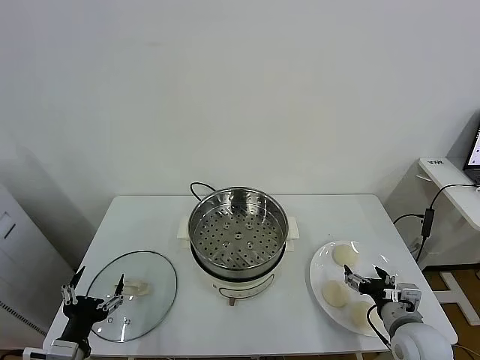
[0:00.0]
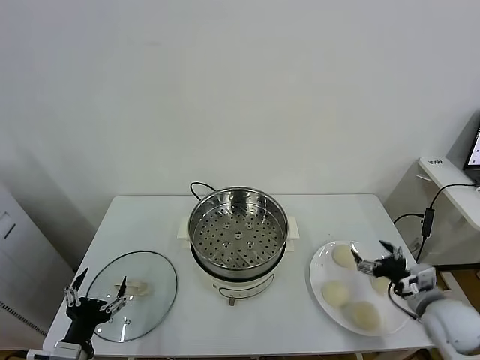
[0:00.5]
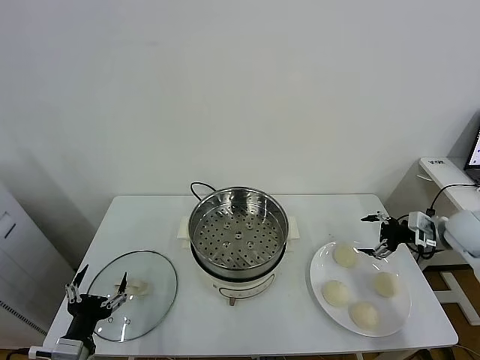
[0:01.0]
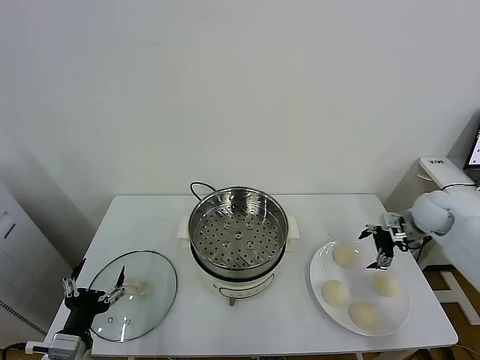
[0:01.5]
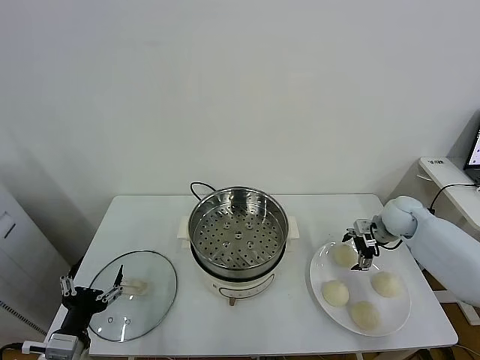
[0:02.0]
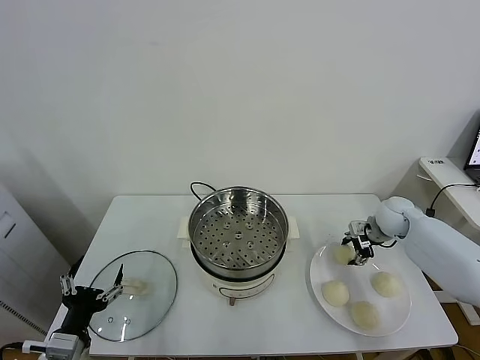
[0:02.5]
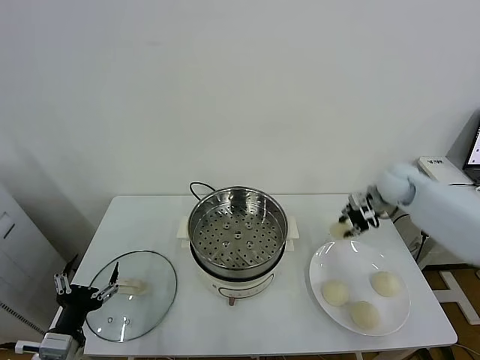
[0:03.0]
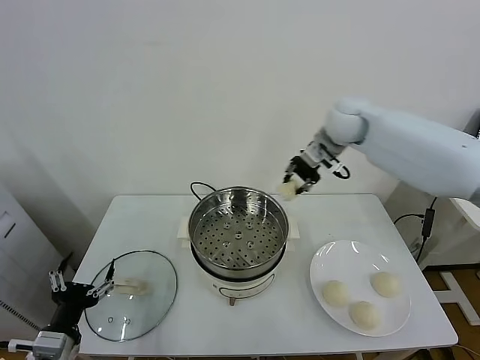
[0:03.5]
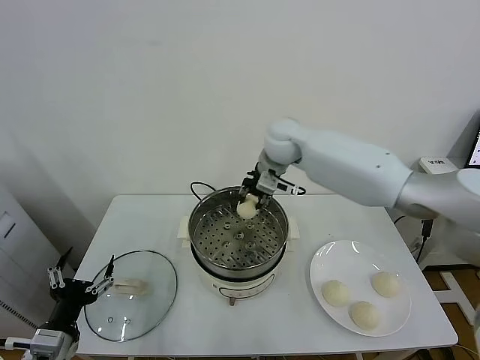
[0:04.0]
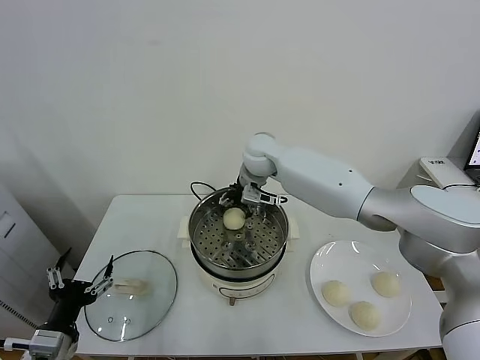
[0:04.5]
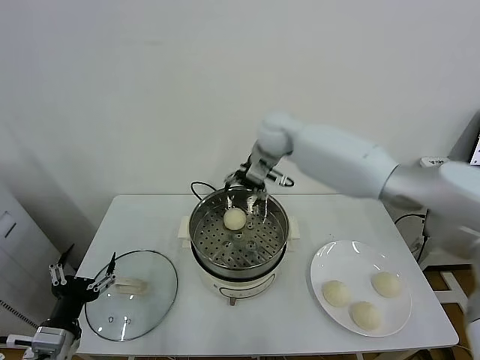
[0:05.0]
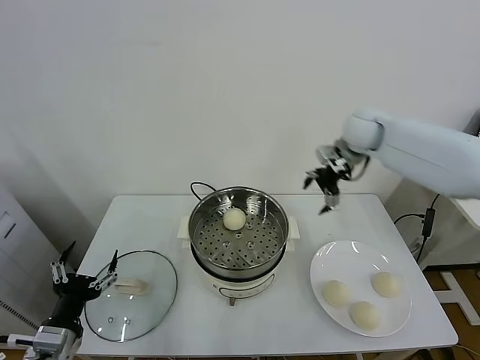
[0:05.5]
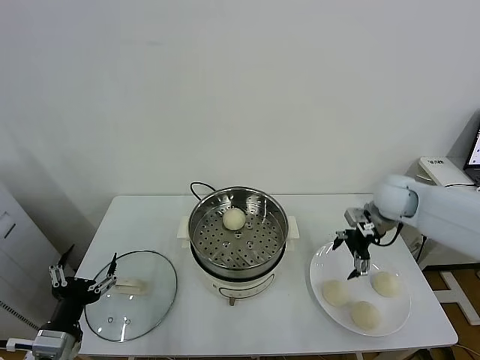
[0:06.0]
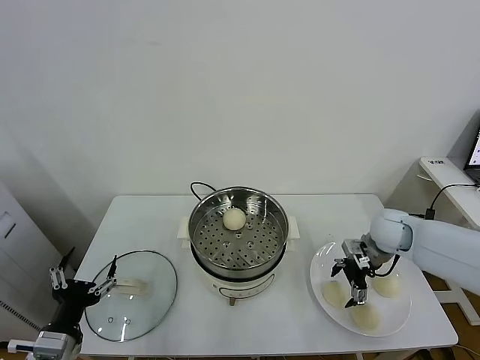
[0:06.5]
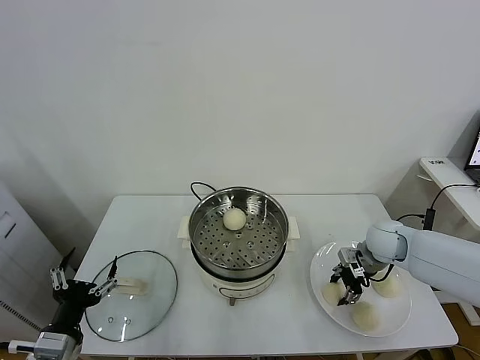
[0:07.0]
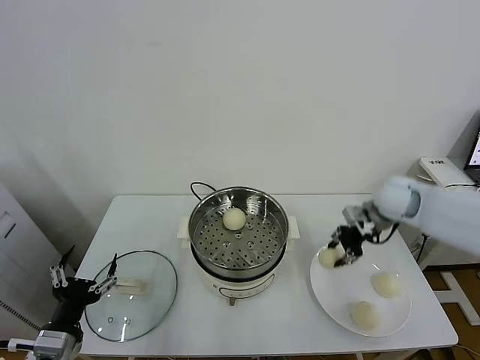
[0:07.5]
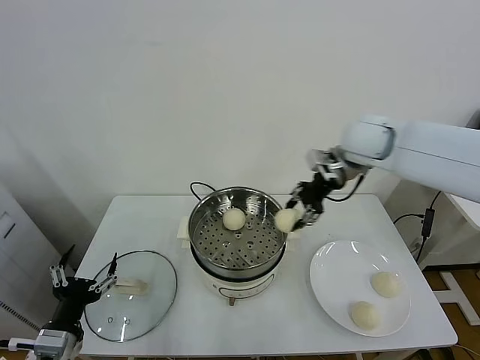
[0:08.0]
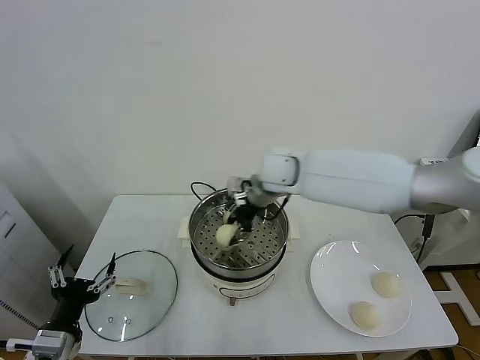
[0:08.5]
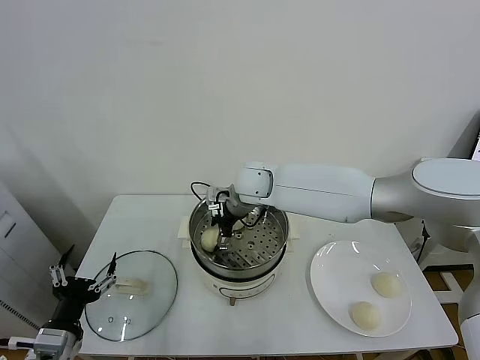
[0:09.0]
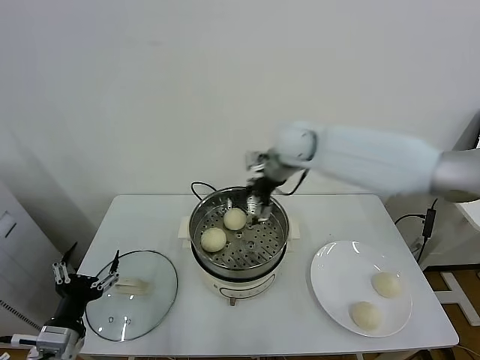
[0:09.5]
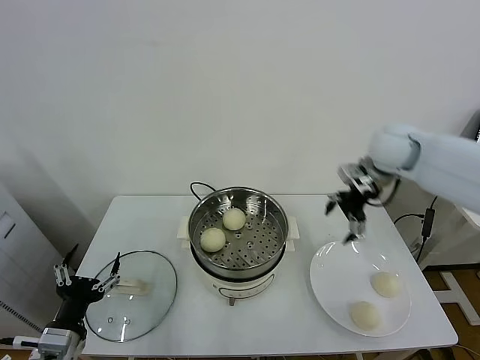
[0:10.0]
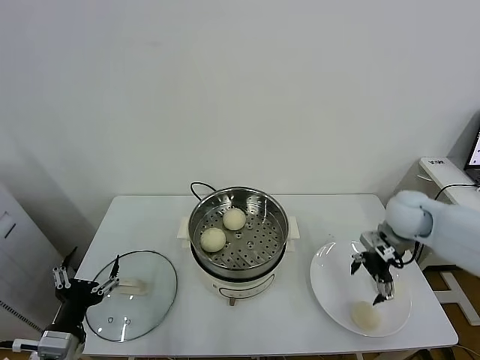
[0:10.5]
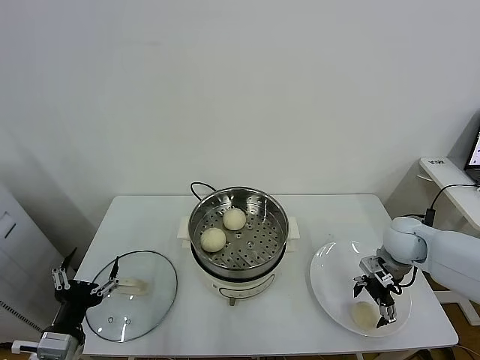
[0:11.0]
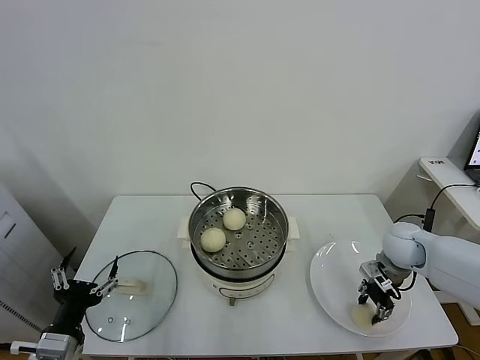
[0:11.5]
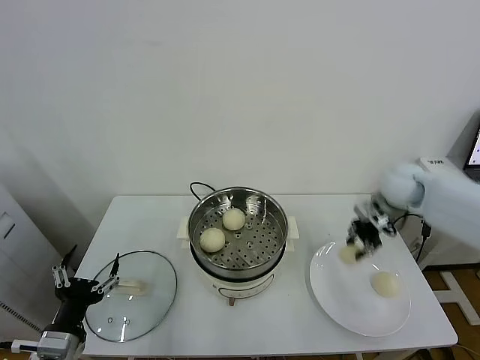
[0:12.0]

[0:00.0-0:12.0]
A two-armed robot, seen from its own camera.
Task of the whole recording: take steamed baozi put them in steamer.
Step, 0:00.0 to 0:02.0: Grasp the baozi in the plate with right gripper.
Step, 0:02.5 to 0:04.5: Place the baozi on the steamer with right gripper.
Step, 0:05.0 to 0:07.0: Grasp the baozi in the plate with right gripper.
Step, 0:07.5 to 0:09.0: Place the baozi on the steamer with right gripper.
Step, 0:09.5 to 0:11.0: Grasp the baozi in the plate with right gripper.
0:02.0 to 0:04.0: The right gripper shifts roughly 35 cm to the left and upward, and closes up.
0:04.0 to 0:06.0: The right gripper moves to the right, about 25 cm, and opens up.
0:06.0 to 0:08.0: The right gripper shifts approximately 20 cm upward and to the left, and closes up.
0:08.0 to 0:10.0: The right gripper reaches about 20 cm to the left, then returns, and opens.
0:10.0 to 0:12.0: The right gripper reaches roughly 20 cm downward, then returns, and closes.

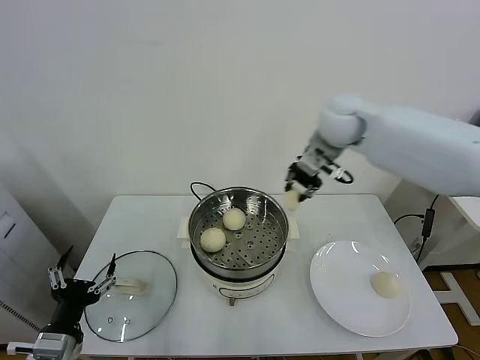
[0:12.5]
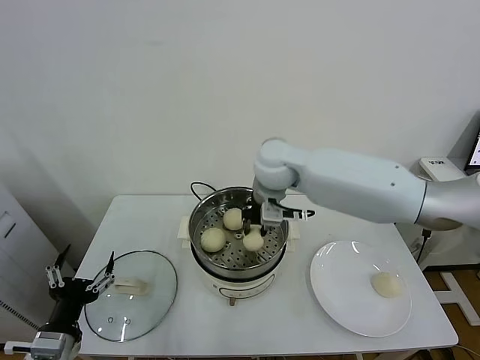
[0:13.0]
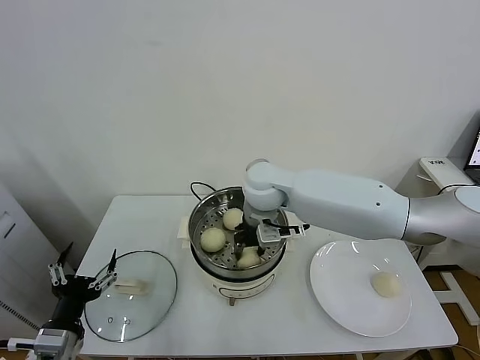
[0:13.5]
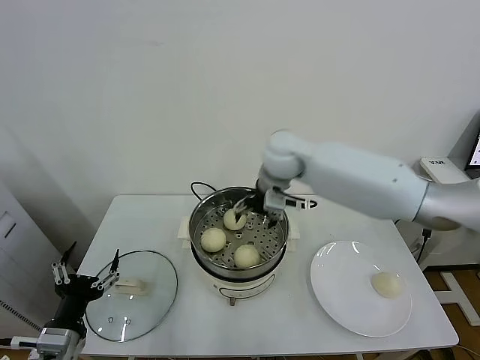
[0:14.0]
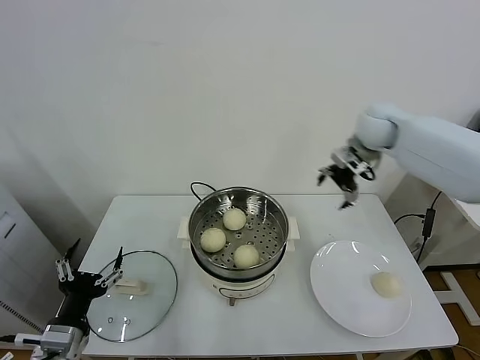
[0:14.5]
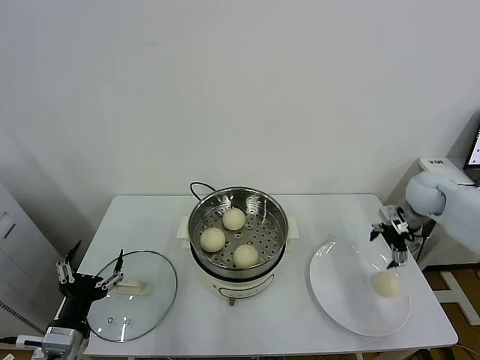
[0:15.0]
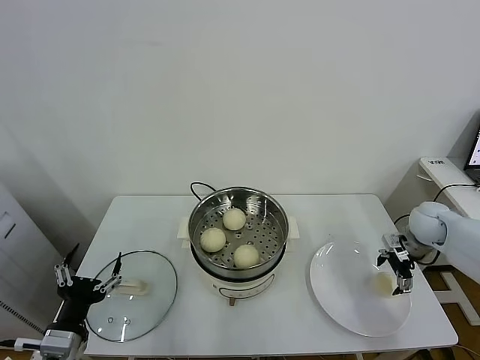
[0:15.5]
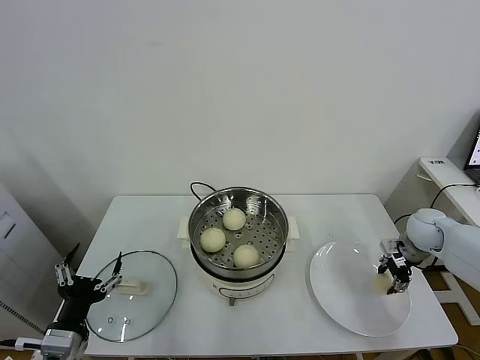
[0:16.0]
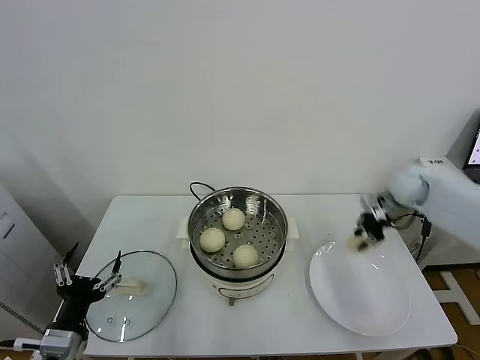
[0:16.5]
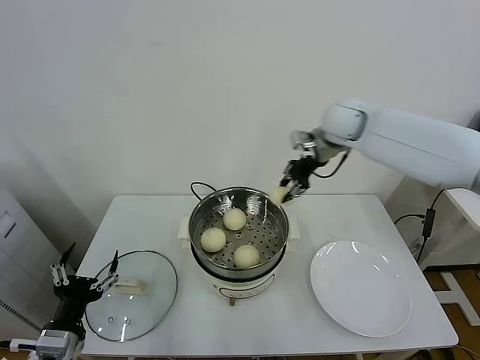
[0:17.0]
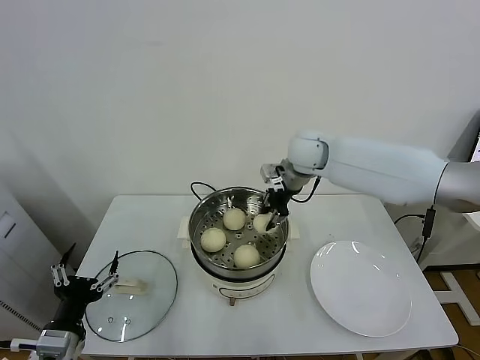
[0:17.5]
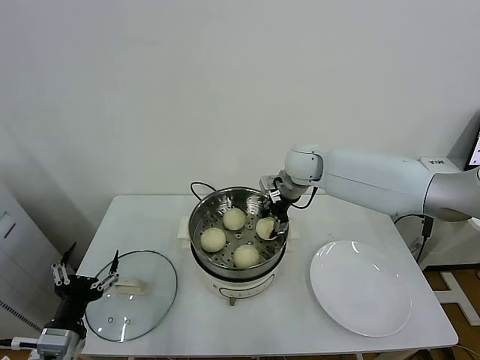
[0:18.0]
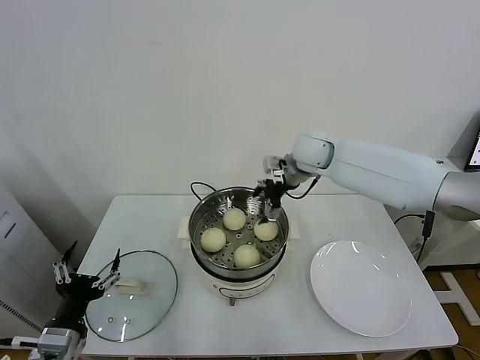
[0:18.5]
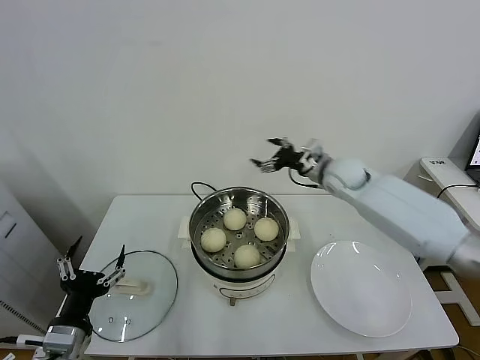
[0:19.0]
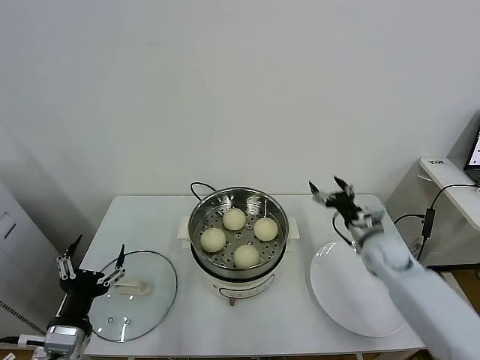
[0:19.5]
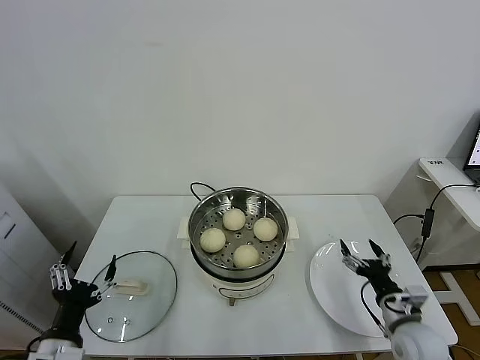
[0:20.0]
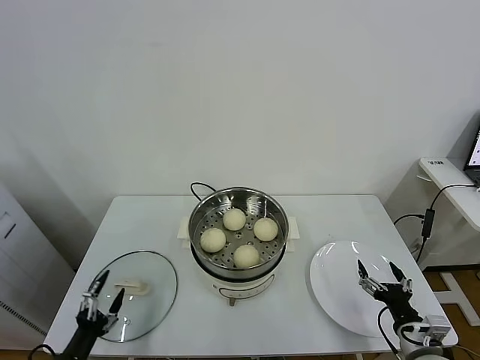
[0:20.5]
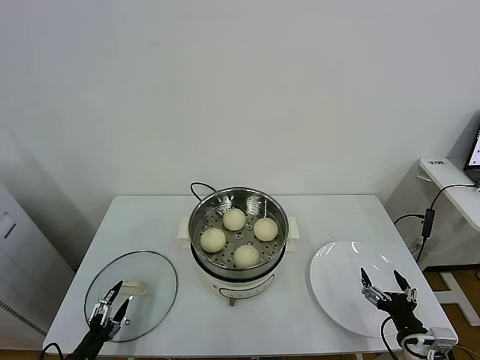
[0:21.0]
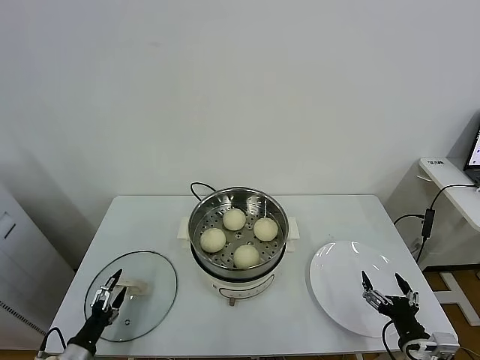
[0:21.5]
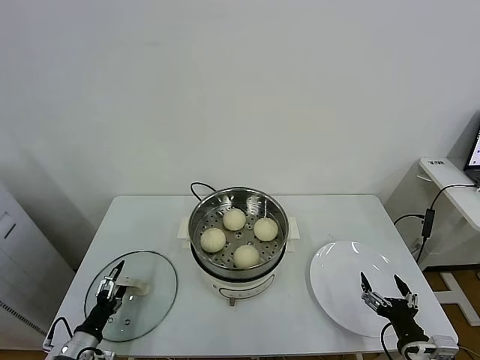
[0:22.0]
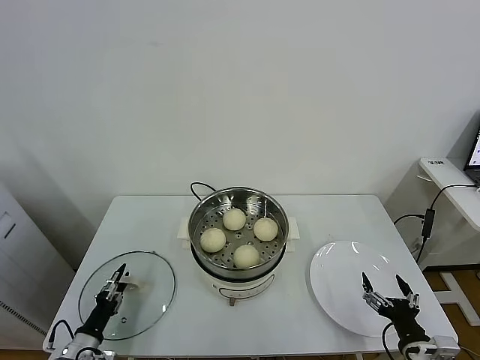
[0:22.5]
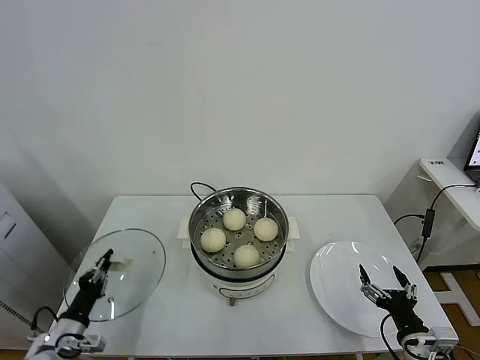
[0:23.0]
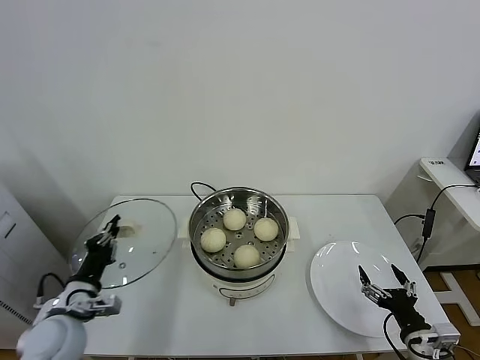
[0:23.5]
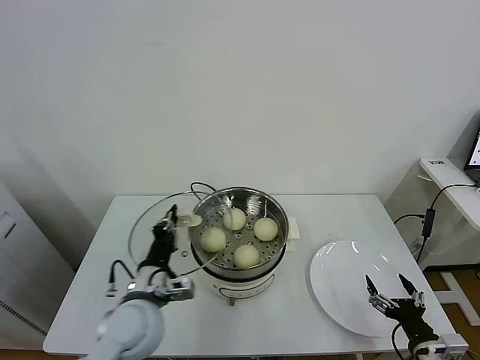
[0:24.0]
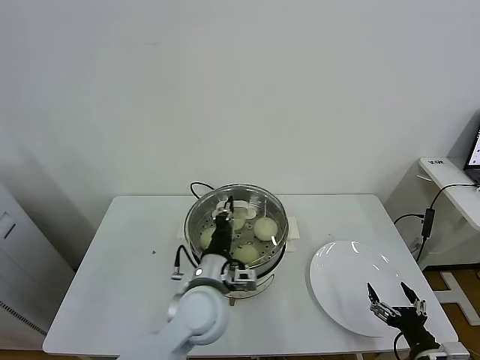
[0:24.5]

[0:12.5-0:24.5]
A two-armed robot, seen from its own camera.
Task of the whole recording: take steamed baozi put them in steamer.
Step, 0:14.0 to 0:16.0: Grasp the baozi in the plate with right gripper.
Step, 0:16.5 to 0:18.0: Place the baozi on the steamer with right gripper.
Step, 0:18.5 to 0:22.5: Grasp the pot lid with left gripper.
0:12.5 to 0:14.5: The right gripper heads to the right, covering about 10 cm, and opens up.
0:14.5 to 0:16.5: The right gripper is displaced downward and to the right by approximately 15 cm, and closes its fingers.
0:16.5 to 0:18.5: The right gripper heads to the left, covering roughly 25 cm, and opens up.
0:18.5 to 0:20.5: The right gripper is displaced backward, downward and to the right by some 50 cm, while the left gripper travels downward and to the left by about 10 cm.
0:20.5 to 0:22.5: The left gripper shifts some 10 cm downward and forward, and closes its fingers.
0:22.5 to 0:24.5: The left gripper is displaced to the right and upward by about 35 cm, and closes its fingers.

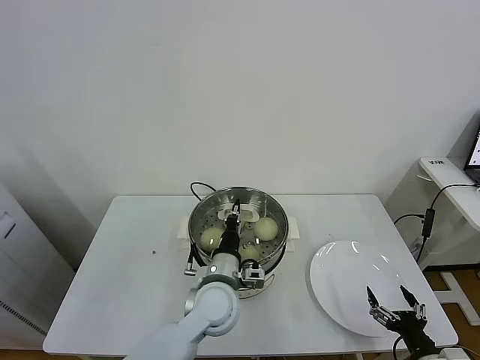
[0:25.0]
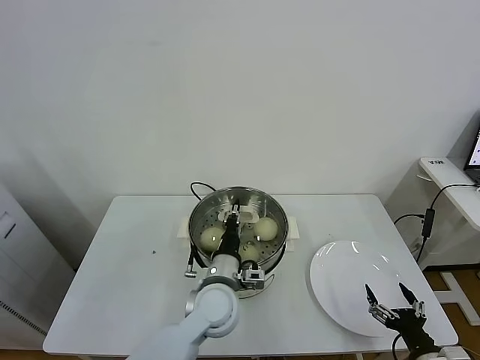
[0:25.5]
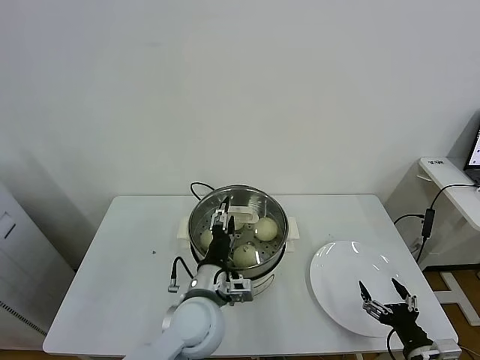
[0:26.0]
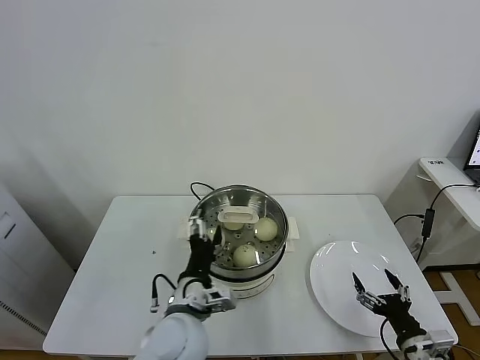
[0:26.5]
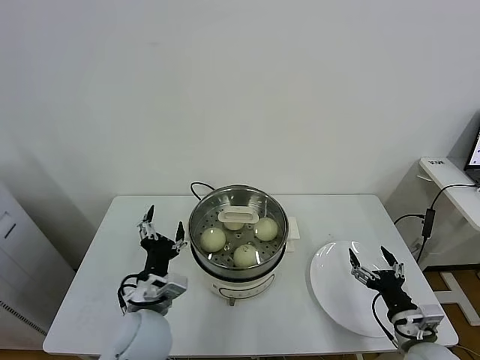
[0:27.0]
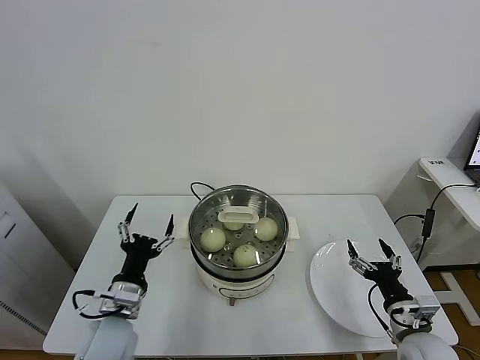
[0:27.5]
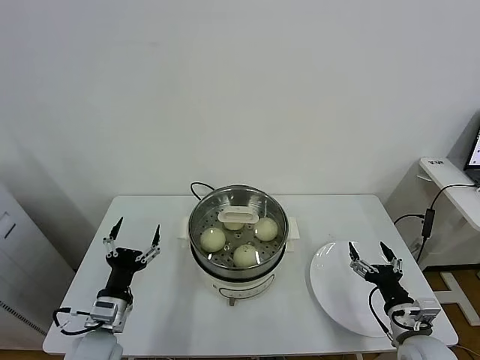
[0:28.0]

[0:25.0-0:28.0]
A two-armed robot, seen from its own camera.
Task of the whole recording: take steamed baozi put them in steamer.
0:25.0 to 0:26.5: The left gripper travels backward by about 5 cm, and opens its fingers.
0:26.5 to 0:28.0: The right gripper shifts approximately 5 cm forward. The left gripper moves to the left and downward, about 20 cm.
